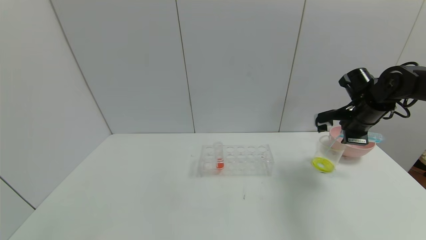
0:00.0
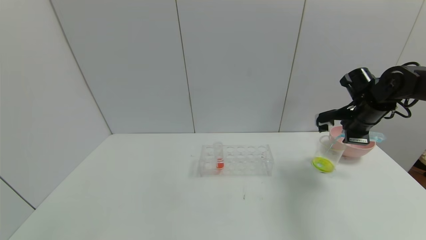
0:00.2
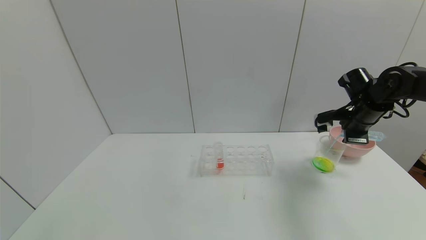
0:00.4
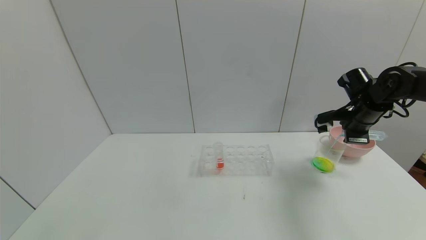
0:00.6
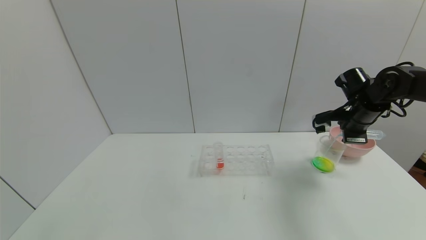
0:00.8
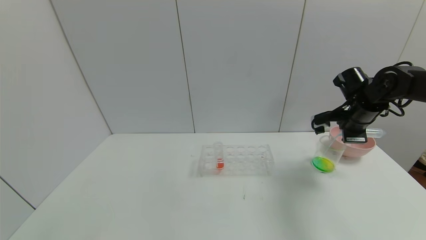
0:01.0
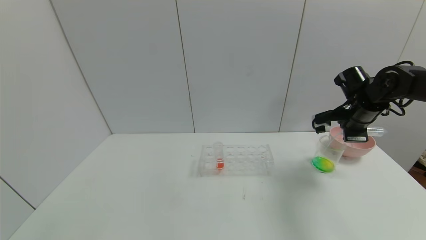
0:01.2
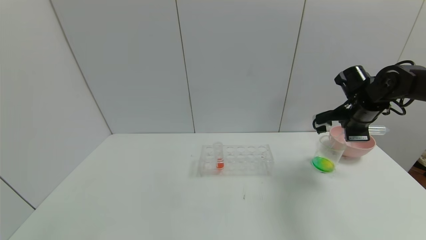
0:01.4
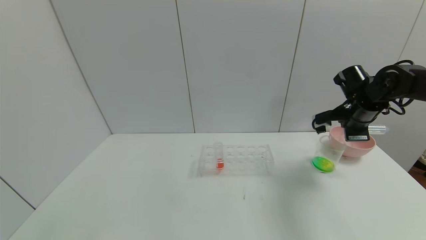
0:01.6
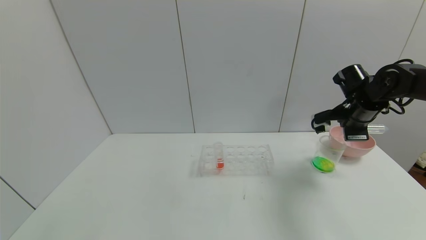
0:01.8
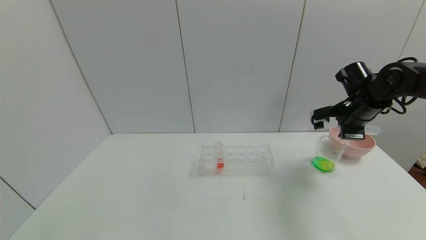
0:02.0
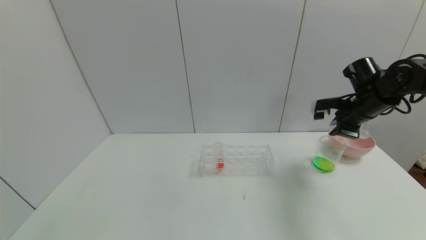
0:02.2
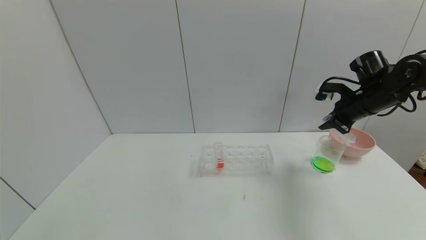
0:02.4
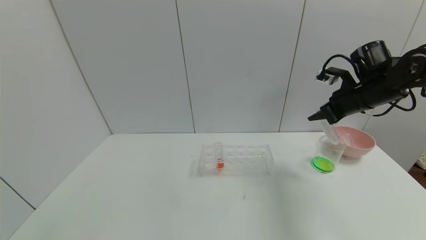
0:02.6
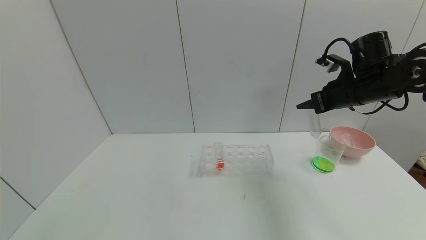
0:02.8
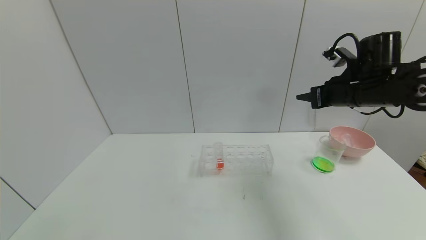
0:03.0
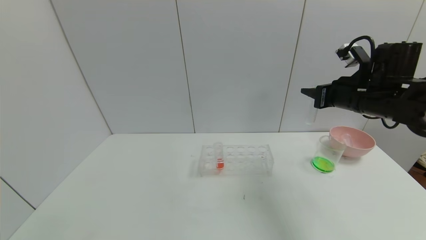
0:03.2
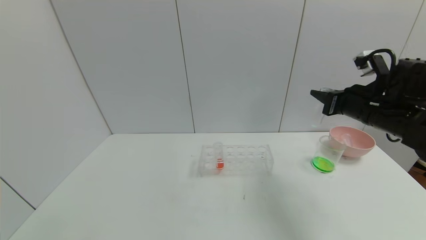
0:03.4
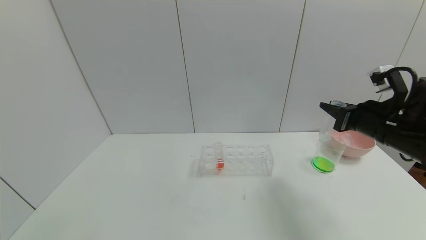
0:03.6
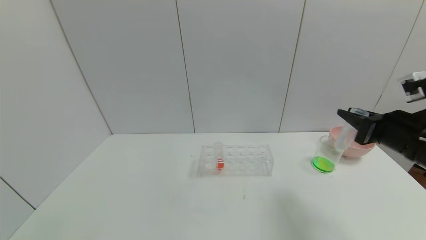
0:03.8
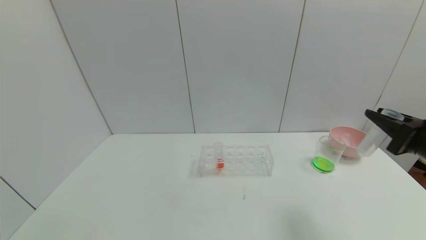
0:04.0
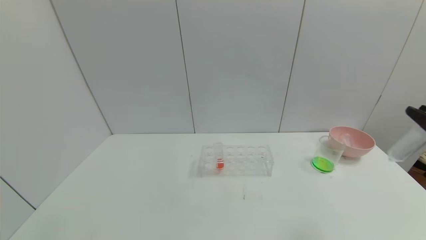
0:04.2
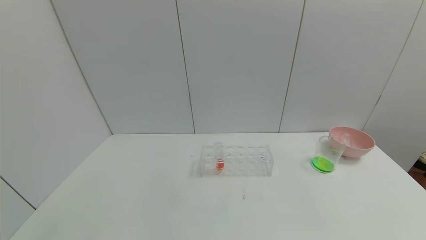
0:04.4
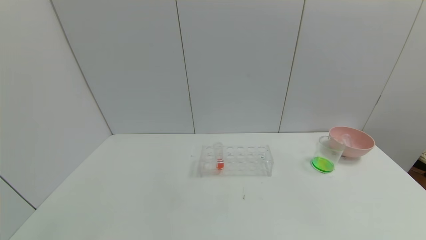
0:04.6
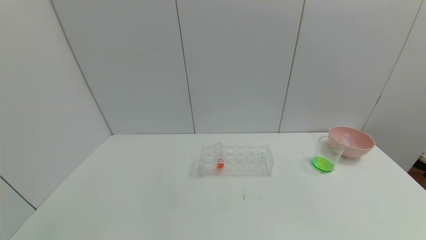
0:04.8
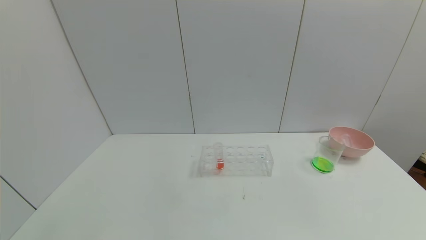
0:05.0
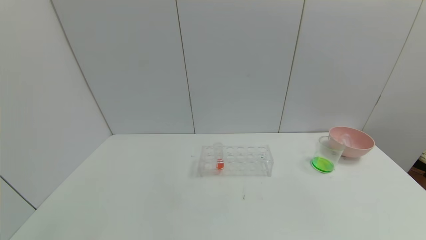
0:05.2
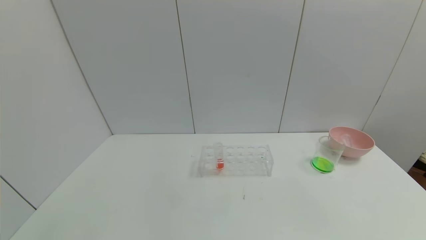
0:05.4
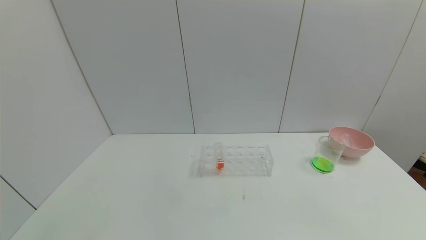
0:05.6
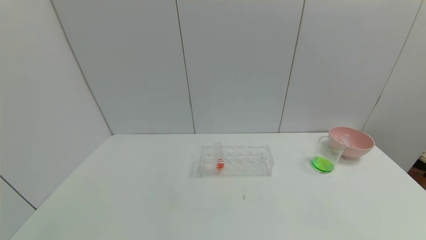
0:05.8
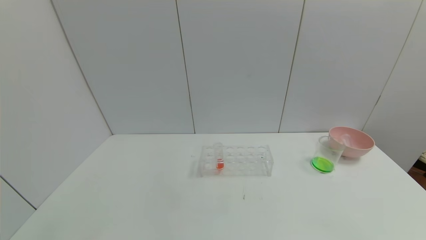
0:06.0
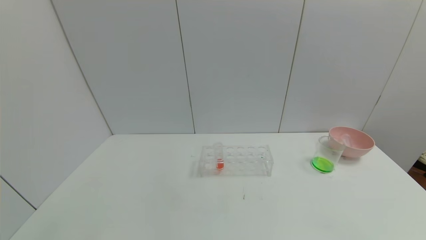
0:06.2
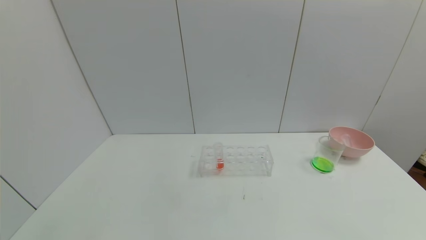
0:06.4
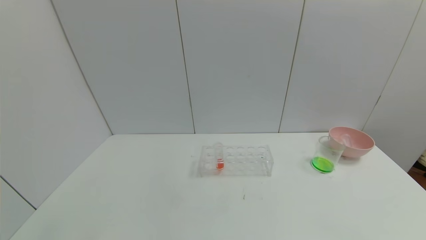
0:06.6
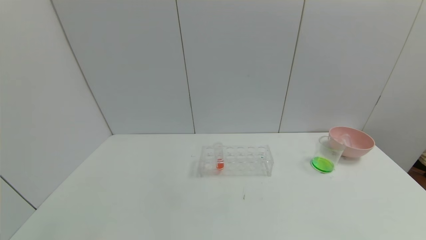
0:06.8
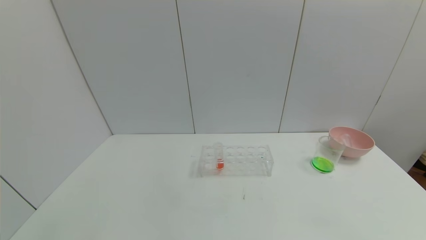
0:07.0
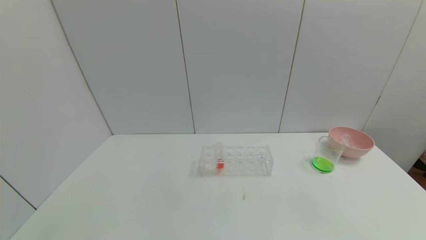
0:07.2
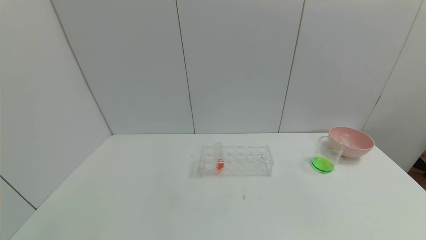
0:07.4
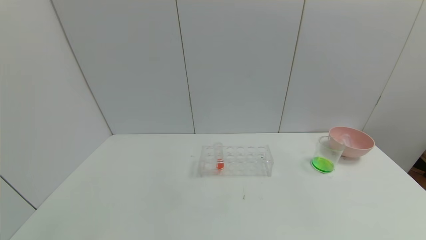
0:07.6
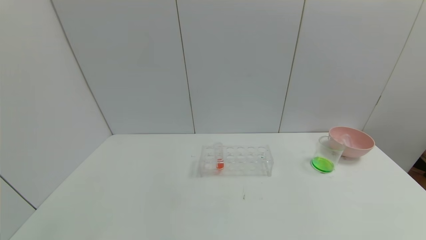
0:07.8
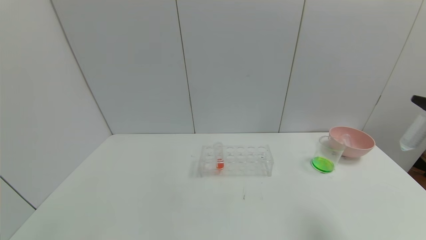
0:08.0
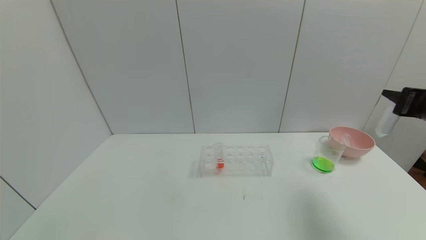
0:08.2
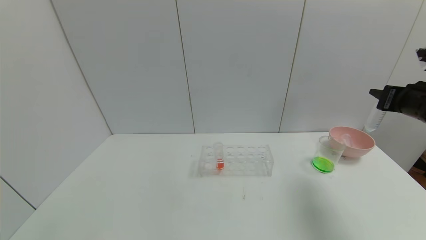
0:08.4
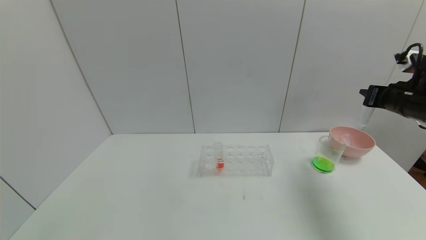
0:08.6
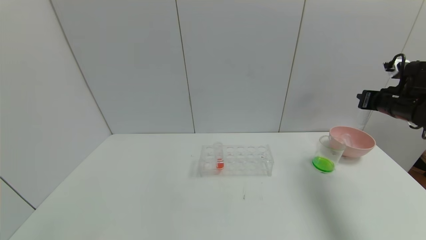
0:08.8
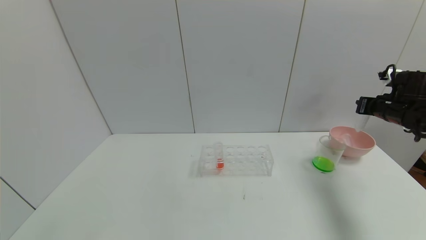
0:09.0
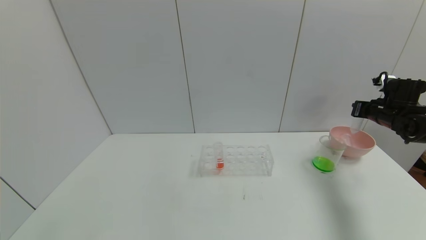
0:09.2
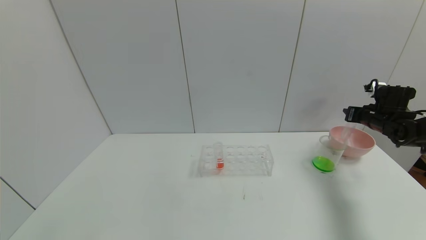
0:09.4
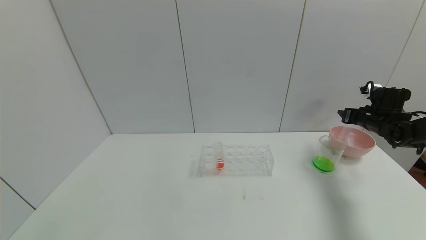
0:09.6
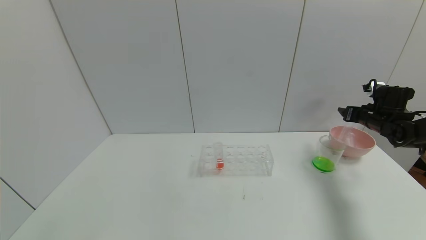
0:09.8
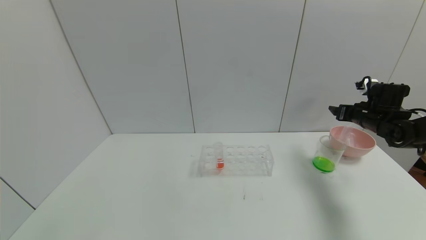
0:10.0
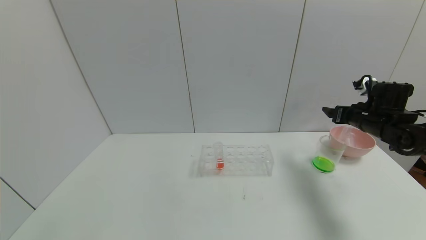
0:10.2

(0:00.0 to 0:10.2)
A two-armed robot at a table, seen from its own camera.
Task of the whole recording: pick up the test tube with yellow pigment and the test tube with blue pigment by grippers and pour them into the beaker.
Step, 0:00.0 - 0:03.4: Pour the blue reagent into the graduated cylinder with right gripper.
0:00.0 - 0:01.4: The grippers make only small movements.
0:01.4 - 0:03.0: The right gripper moves upward and to the left, about 10 cm.
0:03.0 - 0:04.4: The right gripper moves backward, approximately 30 cm.
0:07.2 - 0:08.8: The right gripper goes about 40 cm forward.
0:08.8 - 0:10.2: The right gripper is displaced to the left by approximately 5 cm, and opens its fingers.

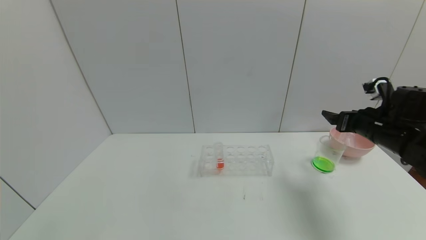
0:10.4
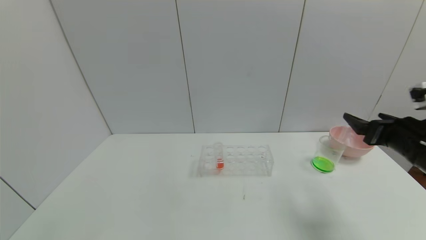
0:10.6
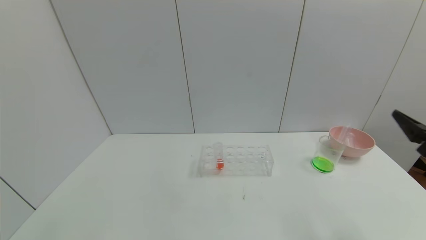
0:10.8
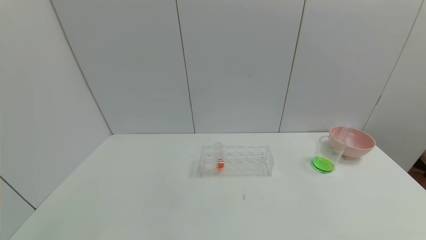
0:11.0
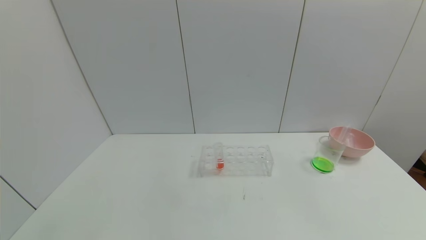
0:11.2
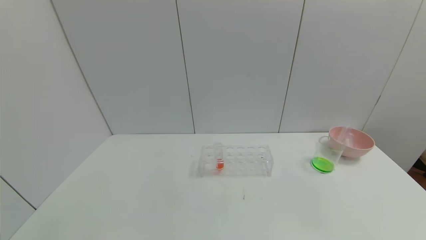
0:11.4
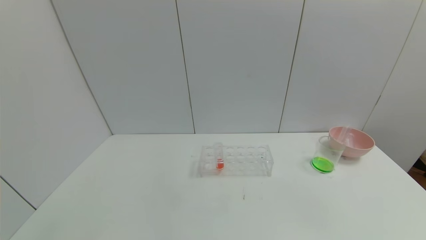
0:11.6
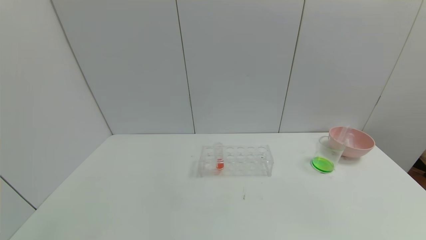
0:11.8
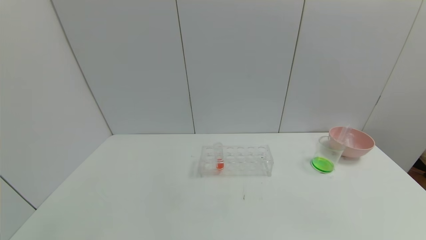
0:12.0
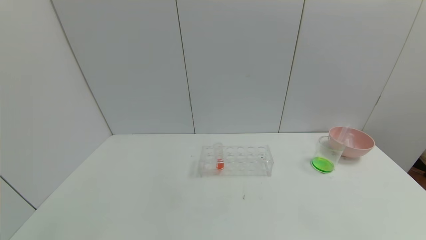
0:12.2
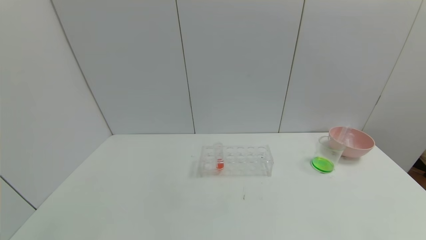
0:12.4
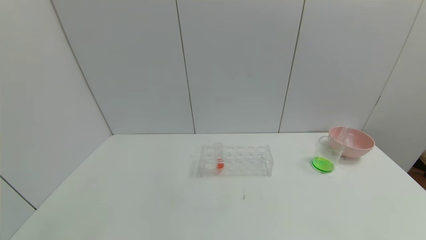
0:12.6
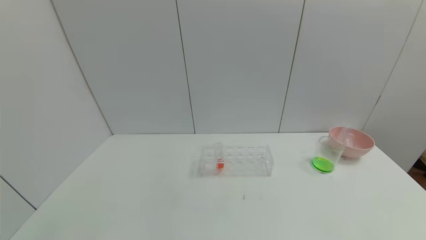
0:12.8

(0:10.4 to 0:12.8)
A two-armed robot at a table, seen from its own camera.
Task of the whole recording: pick up the test tube with yellow pigment and the test tube with blue pigment by grippers and pour them into the beaker.
0:10.4 - 0:11.6: The right gripper moves backward, approximately 30 cm.
